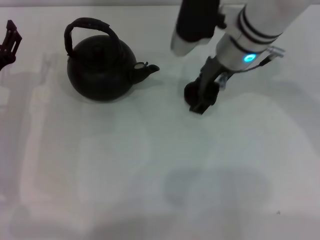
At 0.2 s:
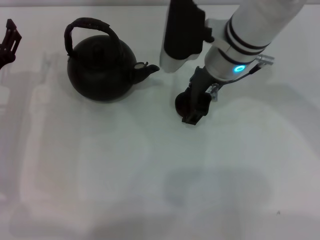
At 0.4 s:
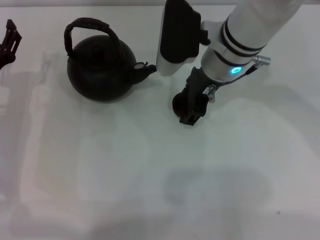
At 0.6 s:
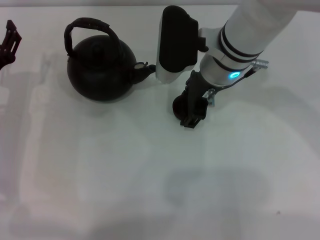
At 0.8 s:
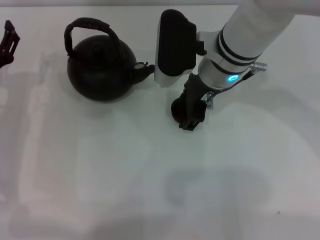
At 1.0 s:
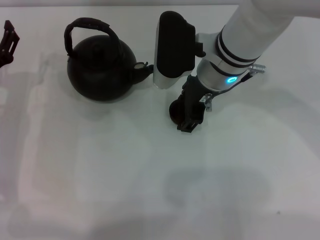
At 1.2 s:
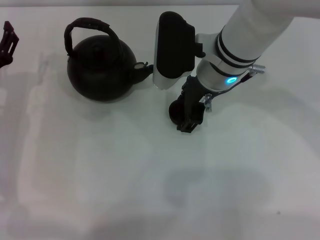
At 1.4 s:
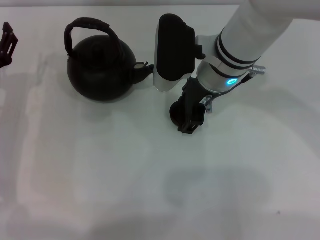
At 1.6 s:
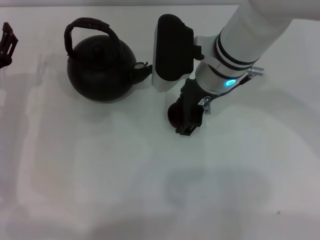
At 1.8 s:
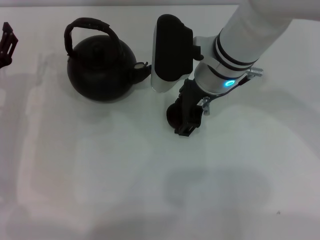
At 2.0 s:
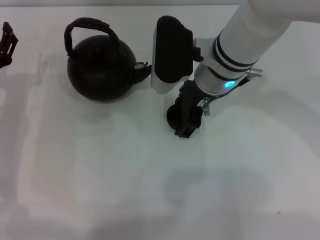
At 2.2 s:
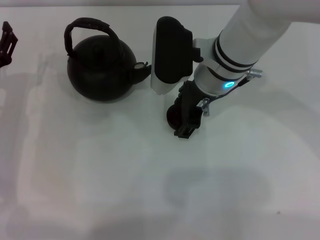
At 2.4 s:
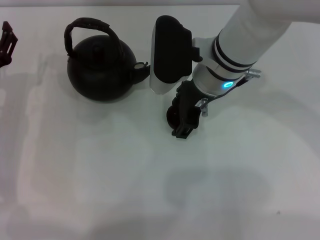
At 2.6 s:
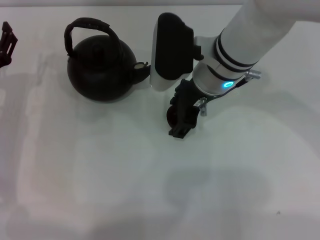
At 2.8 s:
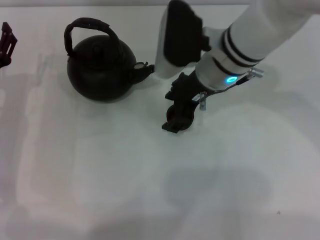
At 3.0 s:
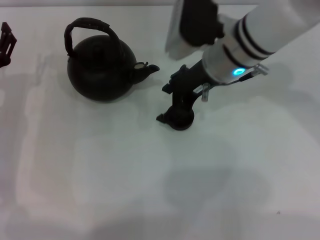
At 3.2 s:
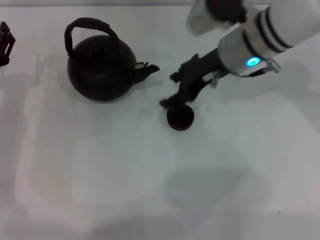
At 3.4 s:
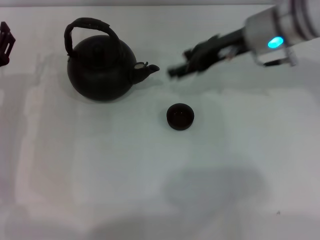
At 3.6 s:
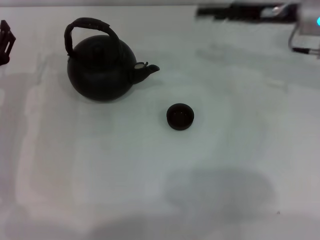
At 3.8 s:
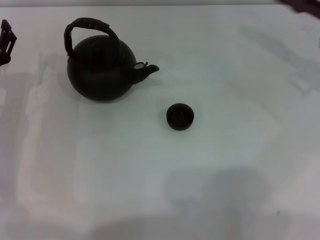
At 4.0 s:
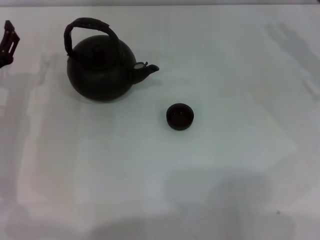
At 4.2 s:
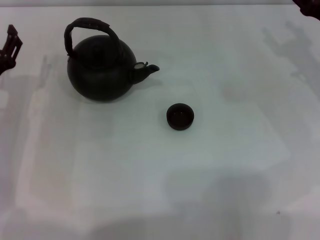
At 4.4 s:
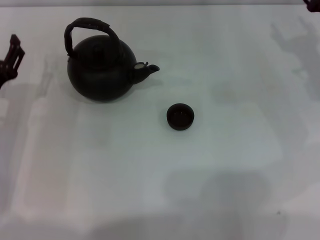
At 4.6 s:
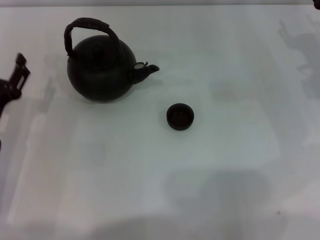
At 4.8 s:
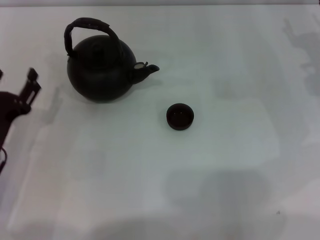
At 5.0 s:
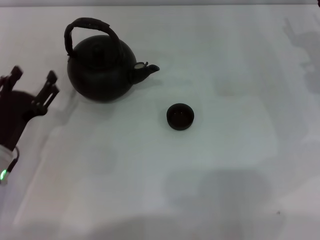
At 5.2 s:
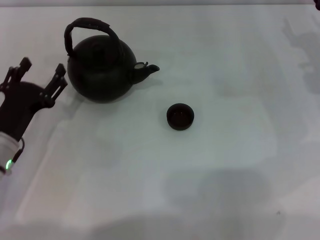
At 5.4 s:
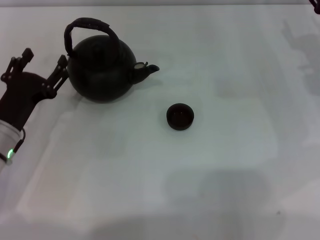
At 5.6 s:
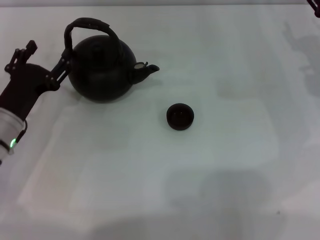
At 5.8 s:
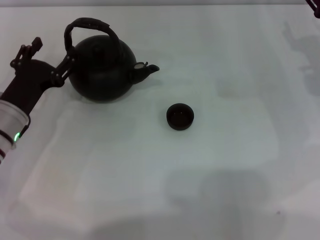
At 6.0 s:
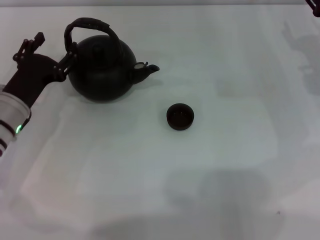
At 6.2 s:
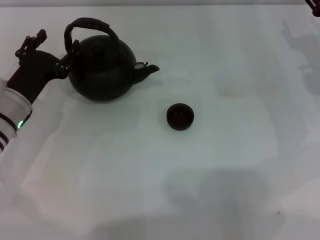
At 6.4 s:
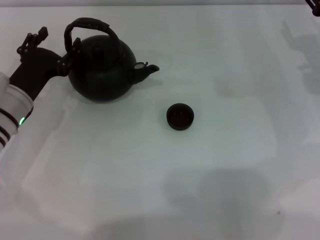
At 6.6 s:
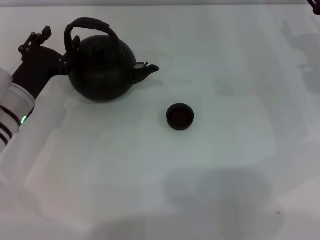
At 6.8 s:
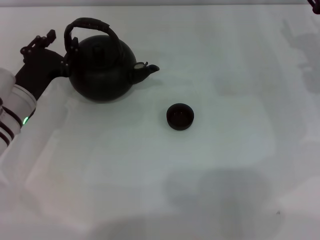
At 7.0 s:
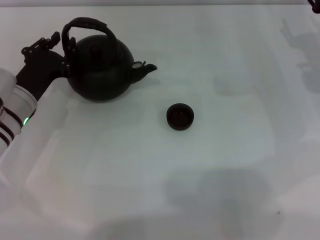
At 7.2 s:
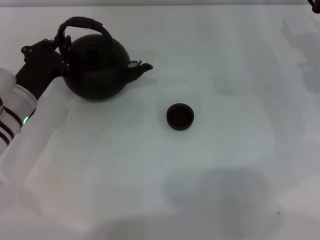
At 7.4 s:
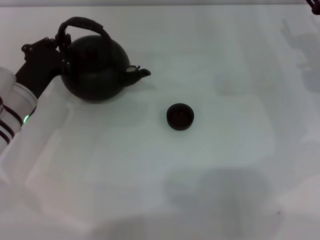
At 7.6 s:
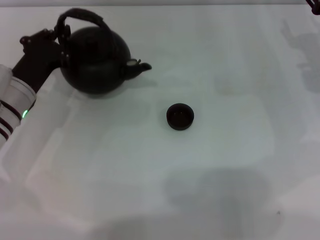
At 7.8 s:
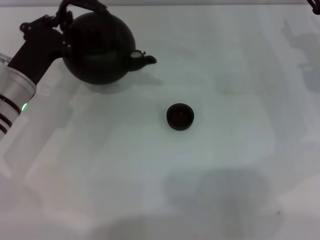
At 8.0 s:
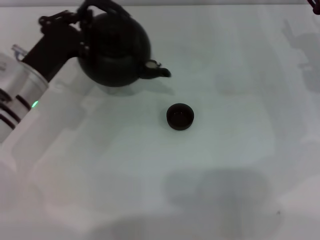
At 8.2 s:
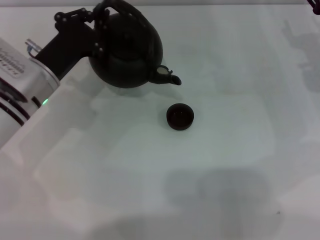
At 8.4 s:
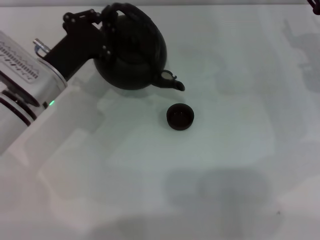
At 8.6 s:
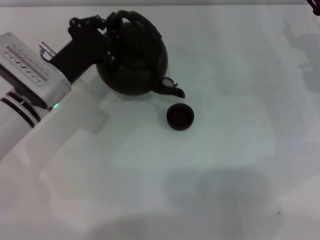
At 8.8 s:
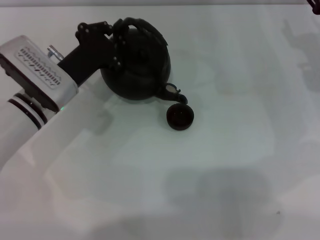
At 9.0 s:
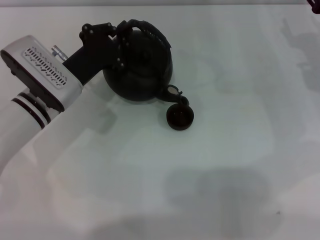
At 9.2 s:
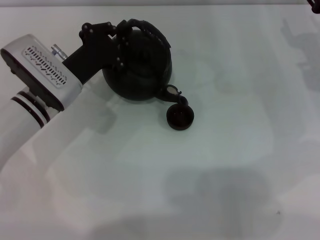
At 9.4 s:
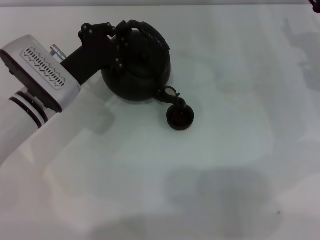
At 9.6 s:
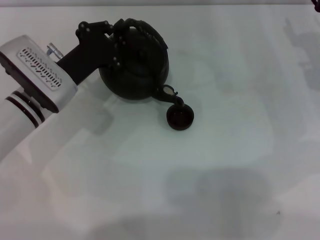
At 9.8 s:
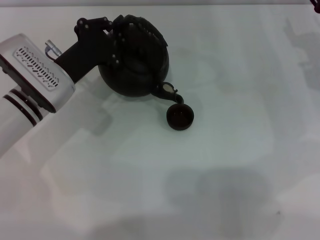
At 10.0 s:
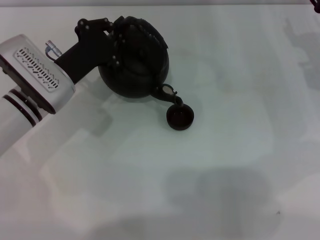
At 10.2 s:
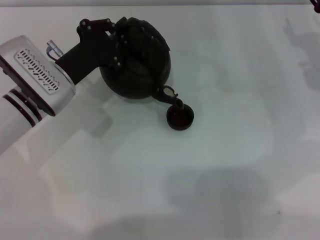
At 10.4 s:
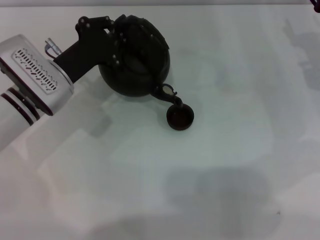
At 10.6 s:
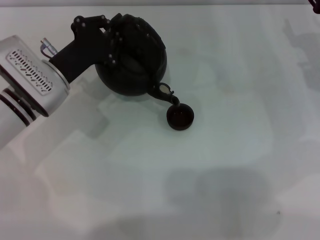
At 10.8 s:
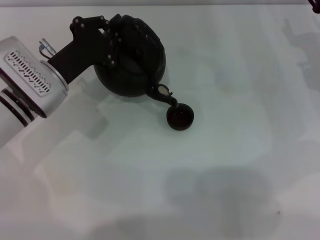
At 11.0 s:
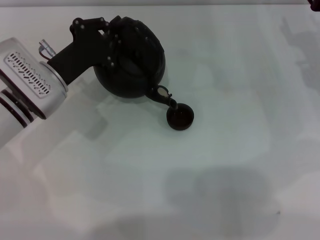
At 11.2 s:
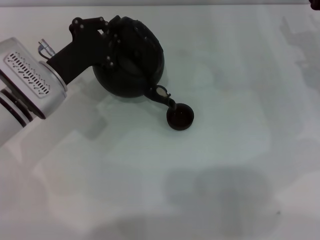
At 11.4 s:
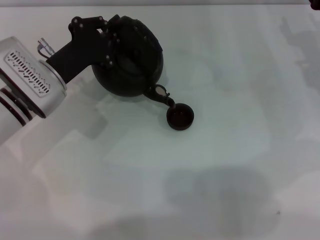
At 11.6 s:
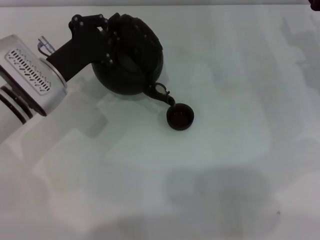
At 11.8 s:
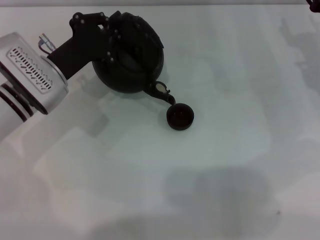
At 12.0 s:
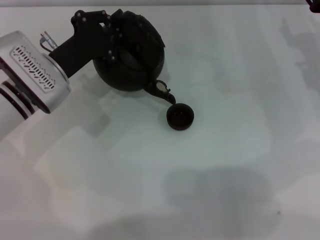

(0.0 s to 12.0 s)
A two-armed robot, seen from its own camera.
Task of the whole recording: Grasp the handle of the teapot with one hand and pour tea into the teacup.
Step, 0.0 s - 3.0 s: Place the teacup in the center of view with the right gripper.
Step, 3.4 s - 8.2 s: Pick up the teapot with the left gripper.
0.0 s - 3.0 s: There are only small adjustments of the grippers.
3.0 s - 4.4 s: The right gripper travels to the right by approximately 20 cm.
6.0 s - 7.6 s: The left gripper closes its fingers.
7.6 s - 9.0 s: The left gripper heads to the right, covering about 5 cm.
9.0 s - 10.4 s: The grippers make only small movements.
10.4 s - 12.0 s: Both grippers stay about where they are.

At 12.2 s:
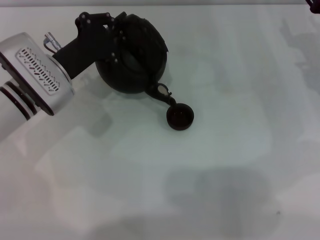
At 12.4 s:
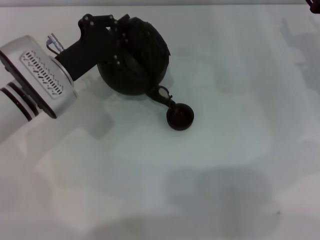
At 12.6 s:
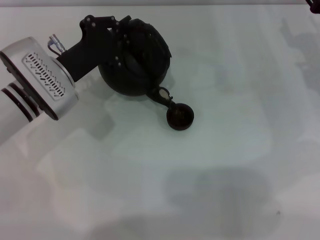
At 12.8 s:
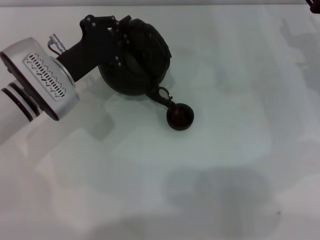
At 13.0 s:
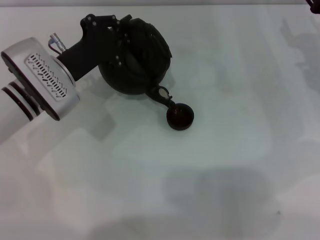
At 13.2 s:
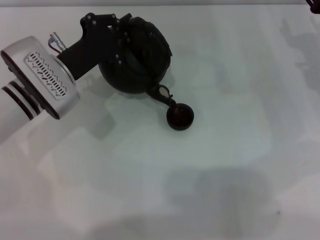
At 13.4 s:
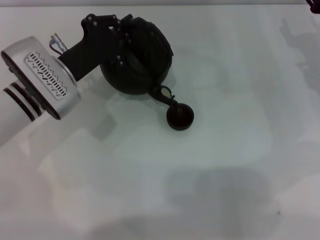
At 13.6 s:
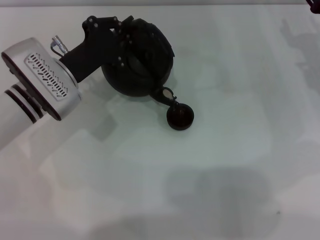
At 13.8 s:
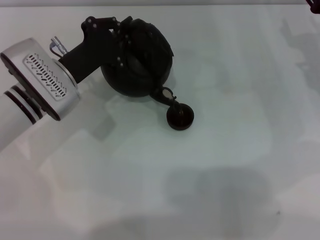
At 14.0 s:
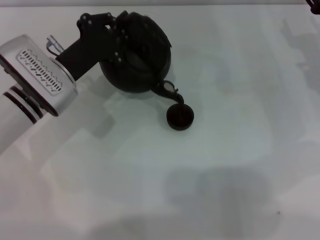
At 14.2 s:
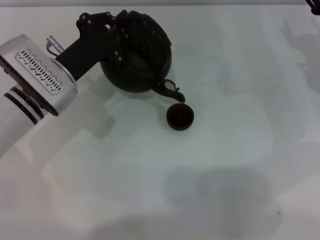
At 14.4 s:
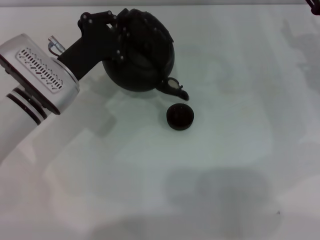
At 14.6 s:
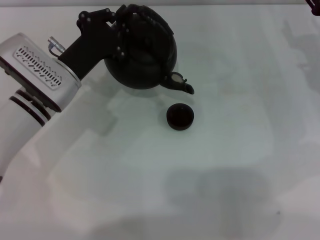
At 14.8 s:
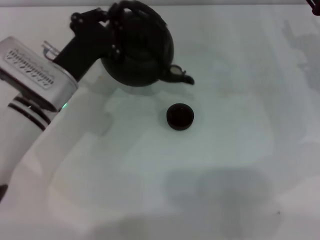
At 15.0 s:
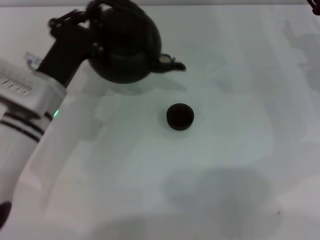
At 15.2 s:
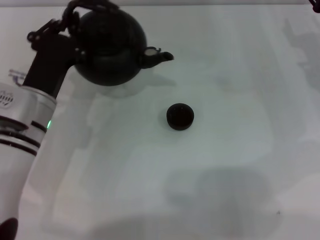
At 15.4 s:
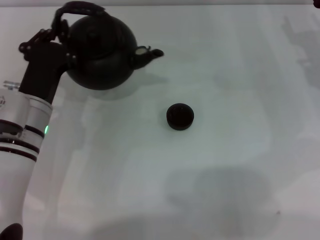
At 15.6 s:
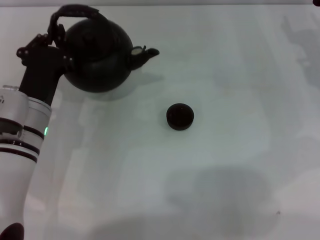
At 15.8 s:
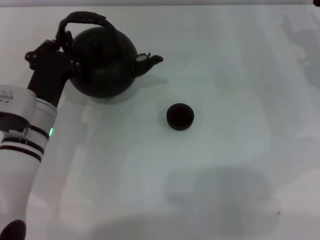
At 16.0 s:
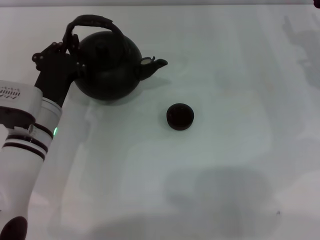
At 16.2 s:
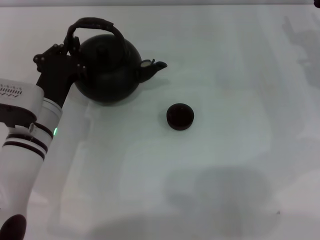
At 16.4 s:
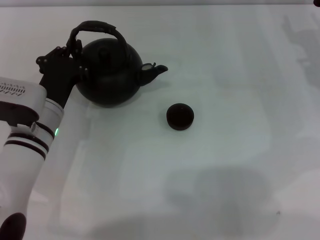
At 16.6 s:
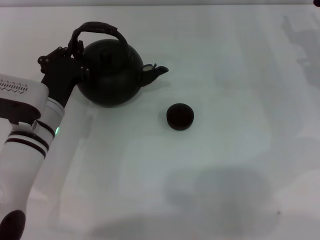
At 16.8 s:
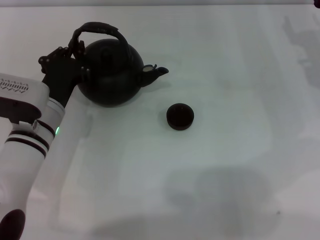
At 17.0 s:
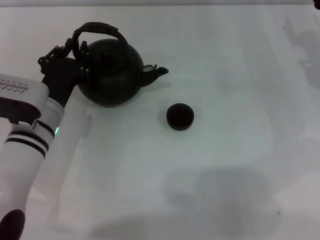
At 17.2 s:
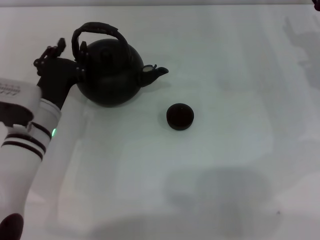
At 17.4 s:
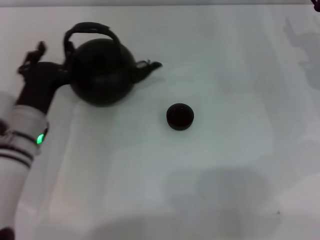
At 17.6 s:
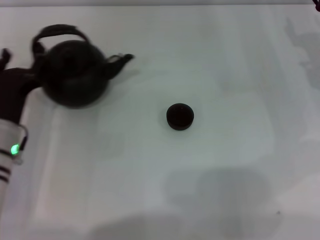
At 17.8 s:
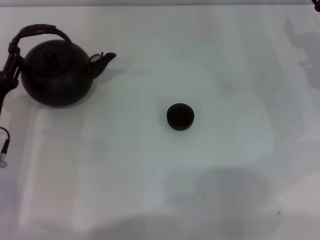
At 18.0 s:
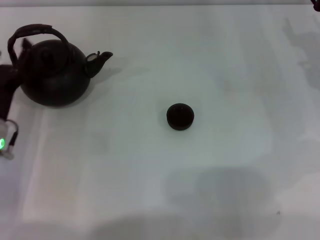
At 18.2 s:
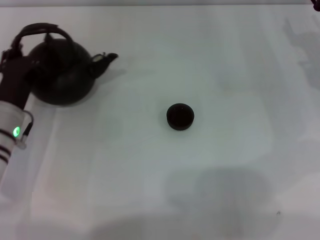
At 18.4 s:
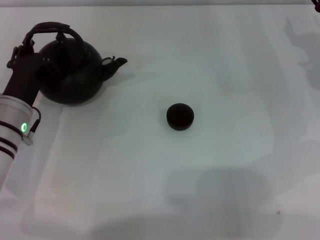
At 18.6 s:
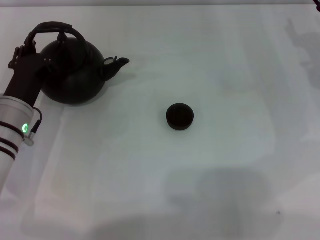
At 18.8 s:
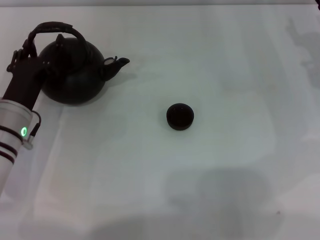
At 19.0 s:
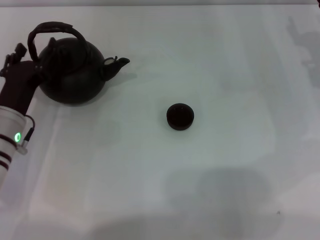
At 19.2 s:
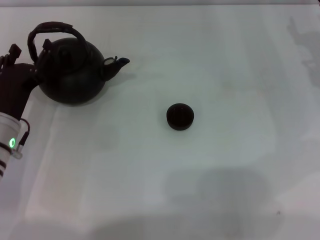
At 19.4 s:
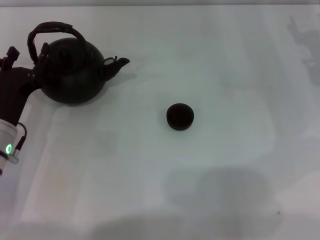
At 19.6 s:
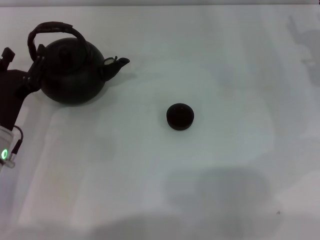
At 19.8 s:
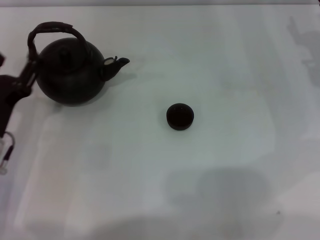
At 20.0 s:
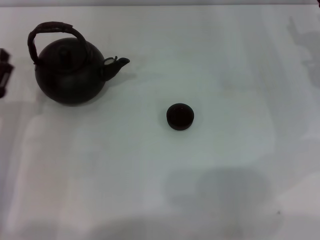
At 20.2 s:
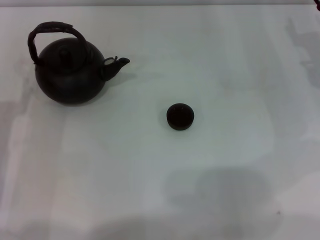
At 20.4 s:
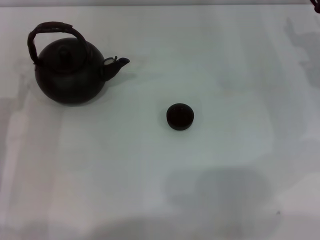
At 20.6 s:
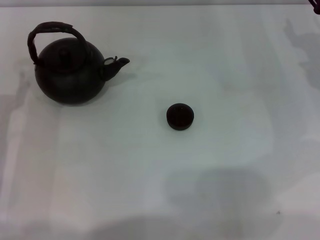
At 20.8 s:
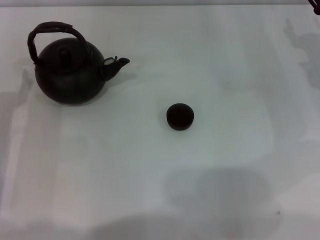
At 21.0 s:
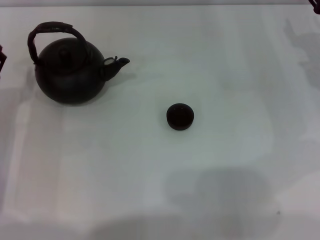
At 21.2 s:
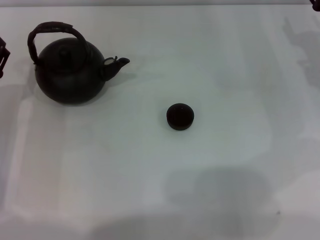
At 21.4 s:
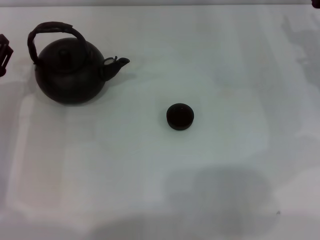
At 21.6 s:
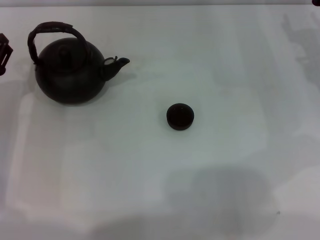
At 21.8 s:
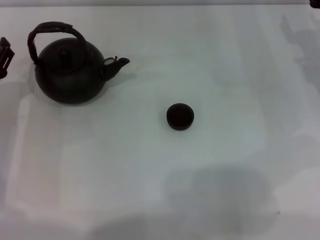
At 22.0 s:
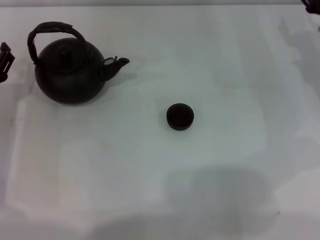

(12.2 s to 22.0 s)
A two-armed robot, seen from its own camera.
Task of the whole recording: Grasp the handle of the teapot with one hand and pour tea into the teacup.
Step, 12.2 s - 14.4 s: Pour tea into the teacup with the left gripper.
Step, 14.6 s - 19.8 s: Put down the teapot with the left gripper.
12.2 s - 13.6 s: Both grippers stay put.
16.4 s - 17.8 s: The left gripper travels to the left by about 10 cm, and opens its fingers.
17.8 s - 19.2 s: The grippers move only a little.
19.2 s - 20.6 s: The left gripper shifts about 5 cm to the left.
